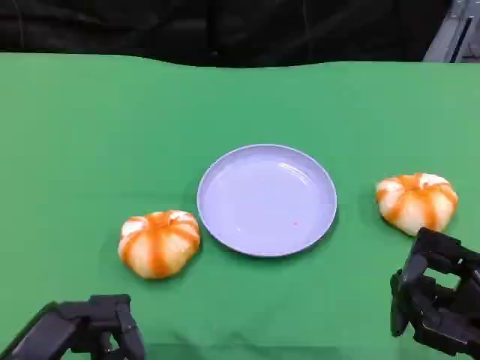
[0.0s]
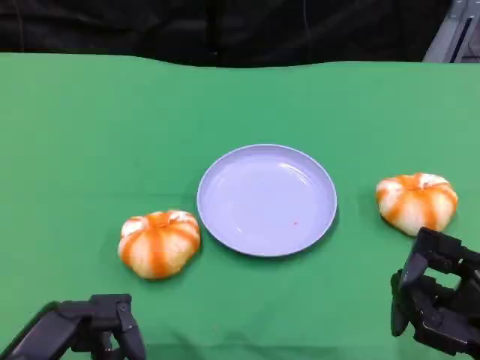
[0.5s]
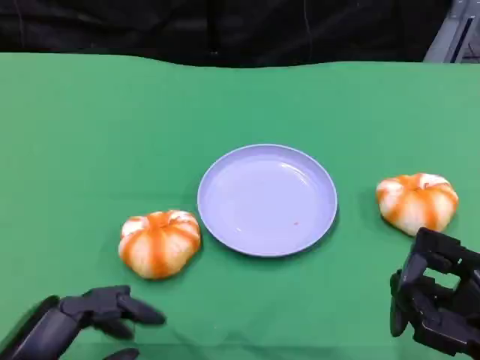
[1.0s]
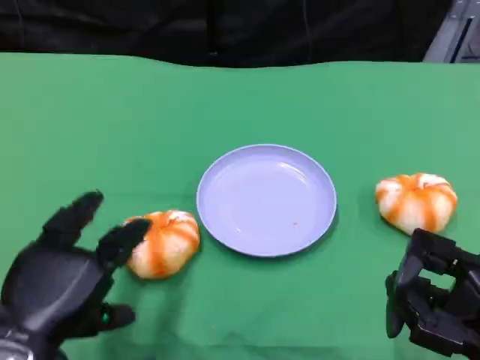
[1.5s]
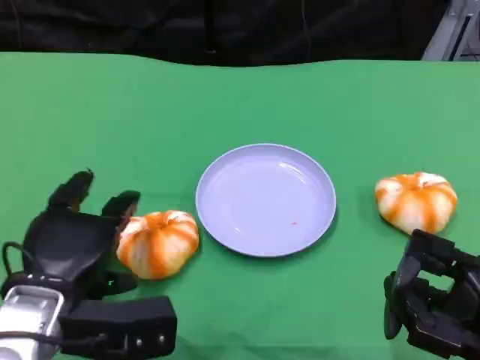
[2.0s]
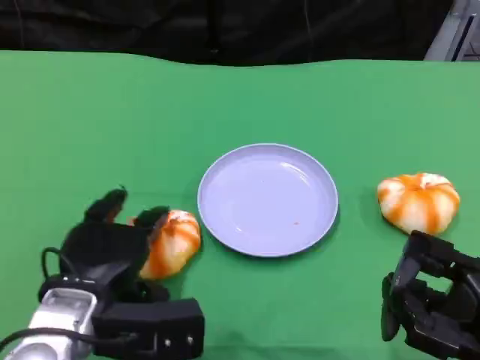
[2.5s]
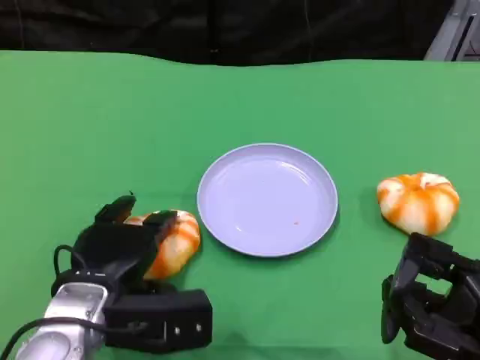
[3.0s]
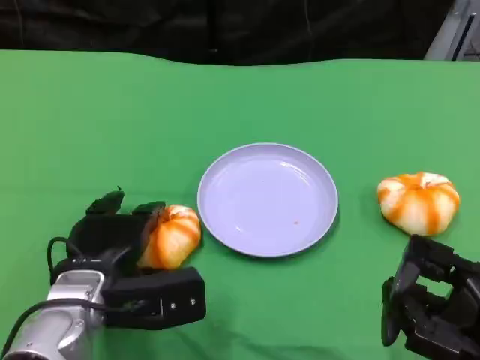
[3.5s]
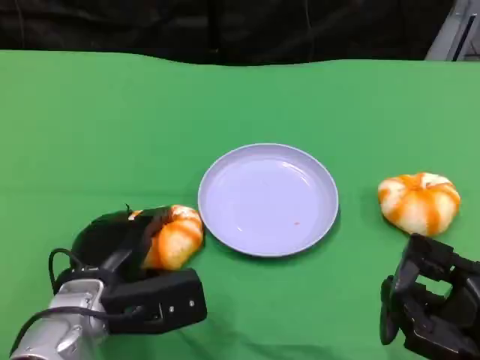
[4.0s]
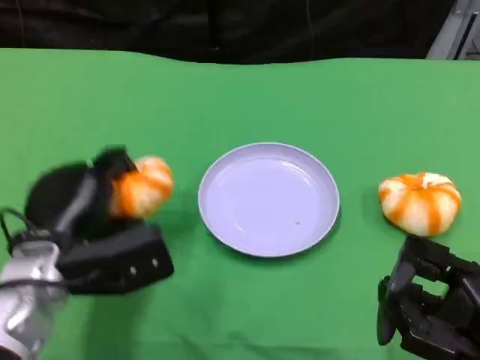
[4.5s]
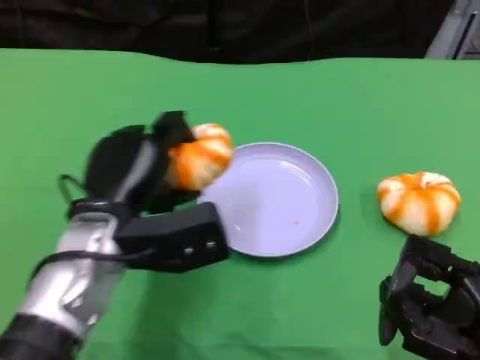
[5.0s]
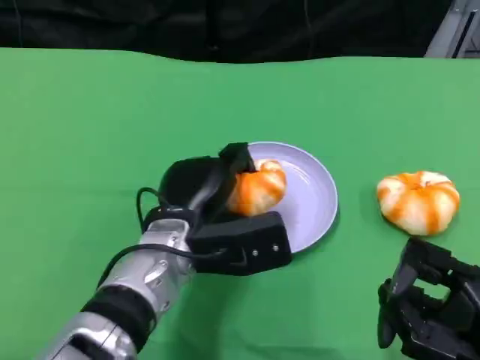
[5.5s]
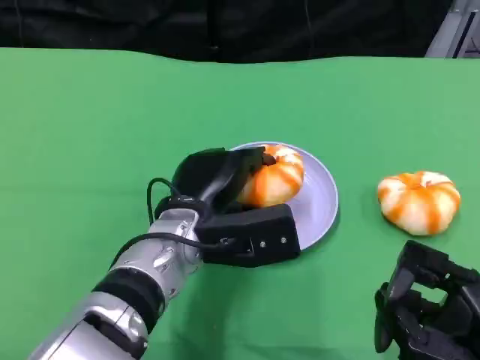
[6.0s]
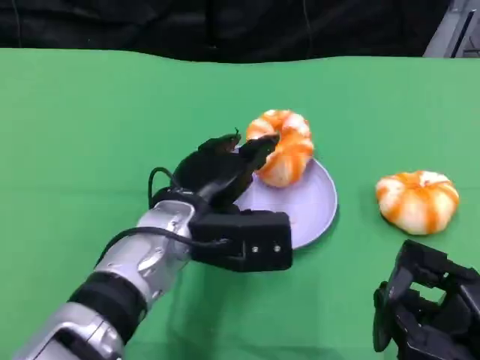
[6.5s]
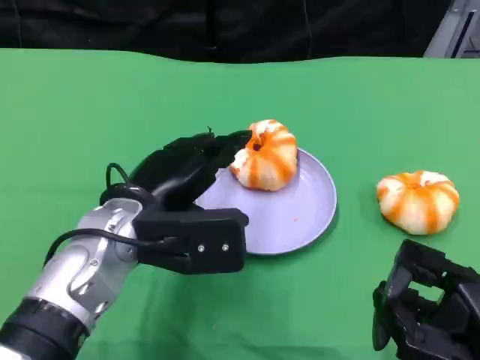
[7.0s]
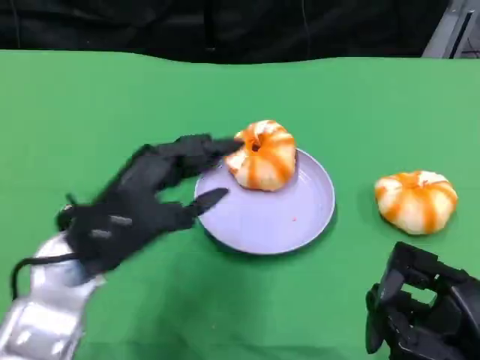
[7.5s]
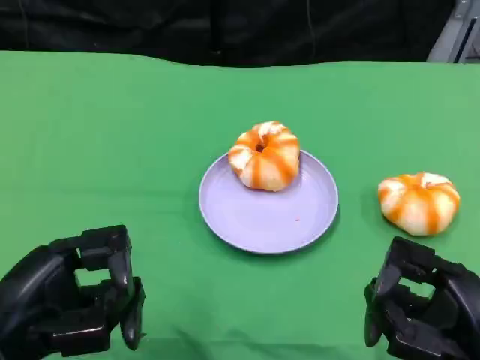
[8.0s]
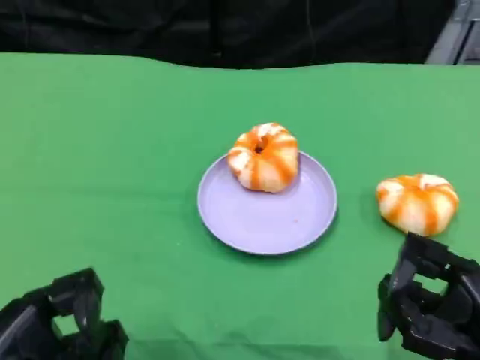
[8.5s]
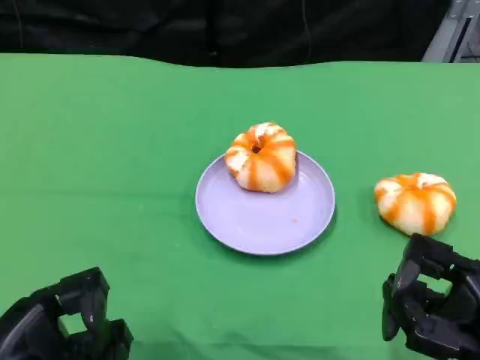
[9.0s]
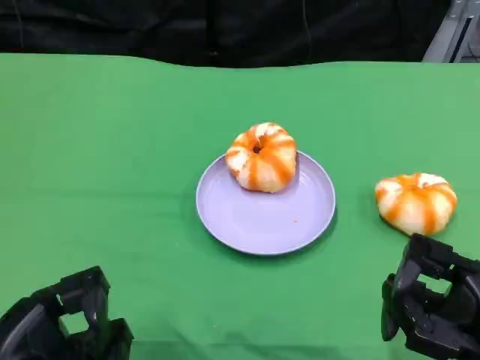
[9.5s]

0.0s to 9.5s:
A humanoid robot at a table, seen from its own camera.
Task of the whole recording: Grasp the bread from the table and place it into the plate.
0.0s to 2.0s: The left hand is displaced forward by about 10 cm.
2.0s to 4.0s: The left hand shifts by roughly 5 cm.
4.0s to 5.5s: The left hand heads to the right, covering about 10 cm.
5.5s to 7.5s: The left hand heads to the left and upward, covering about 10 cm.
7.5s to 9.5s: The left hand moves backward, to the left and downward, some 15 cm.
